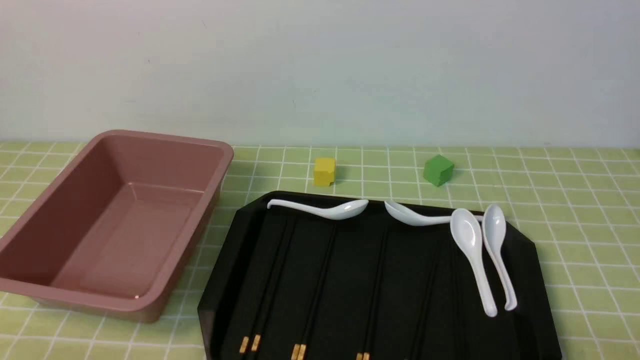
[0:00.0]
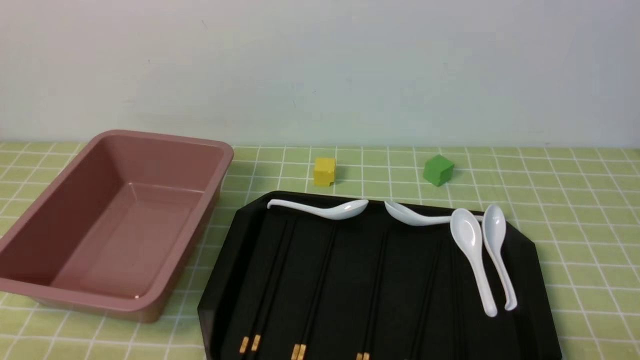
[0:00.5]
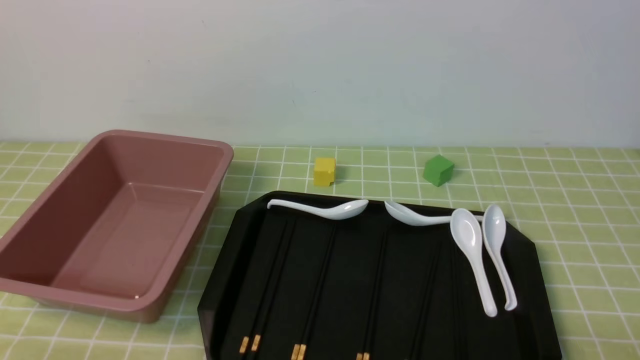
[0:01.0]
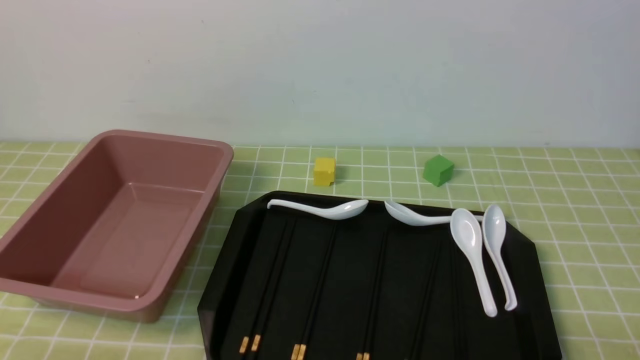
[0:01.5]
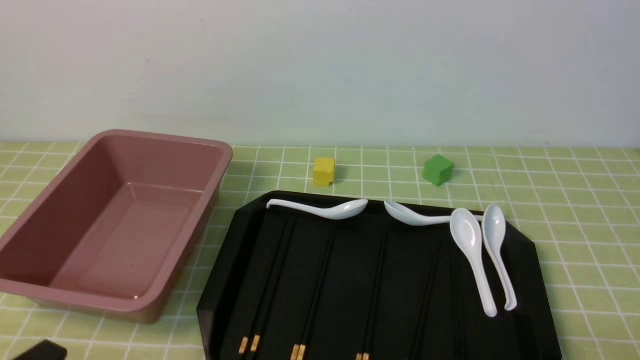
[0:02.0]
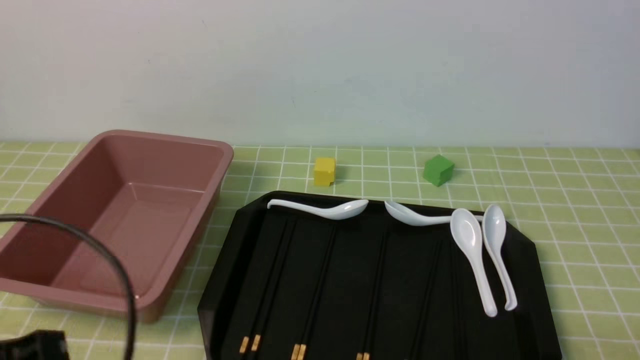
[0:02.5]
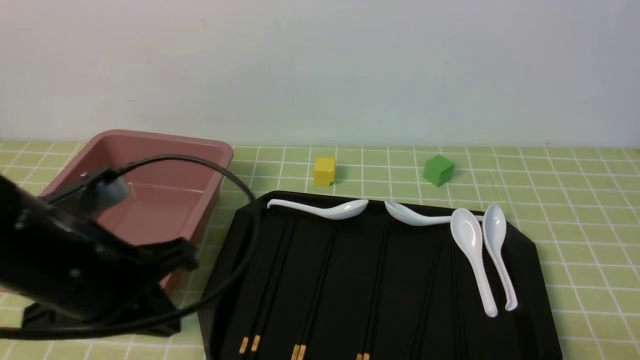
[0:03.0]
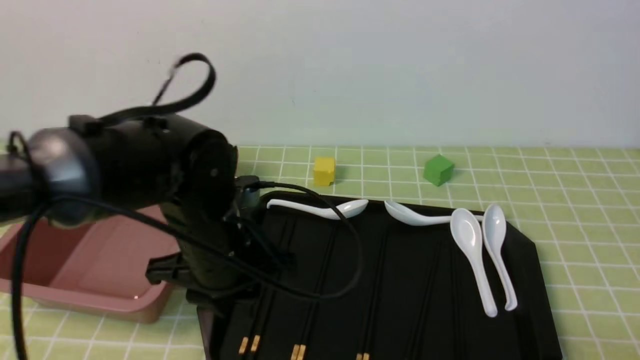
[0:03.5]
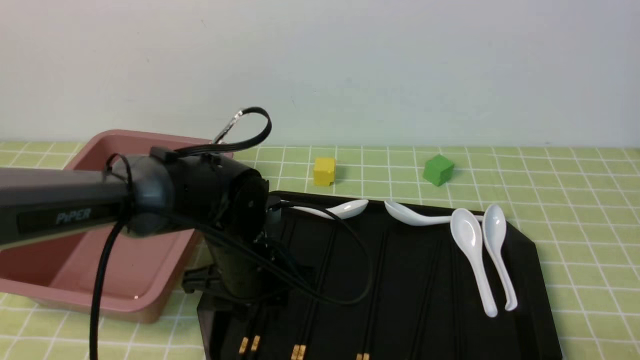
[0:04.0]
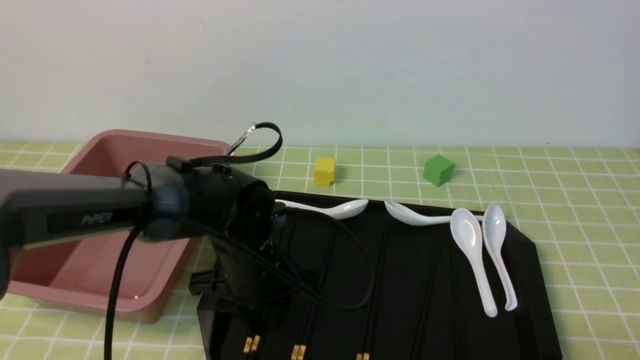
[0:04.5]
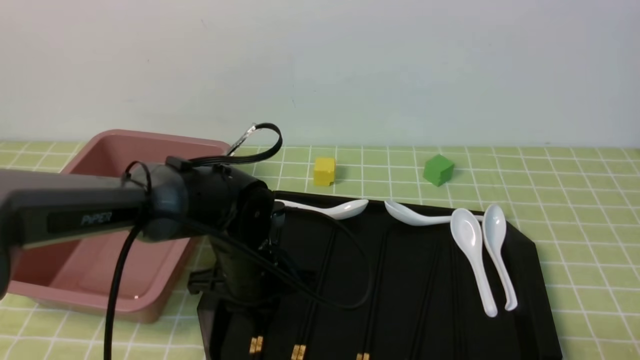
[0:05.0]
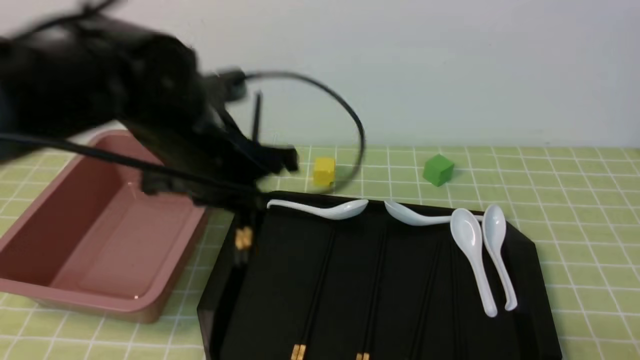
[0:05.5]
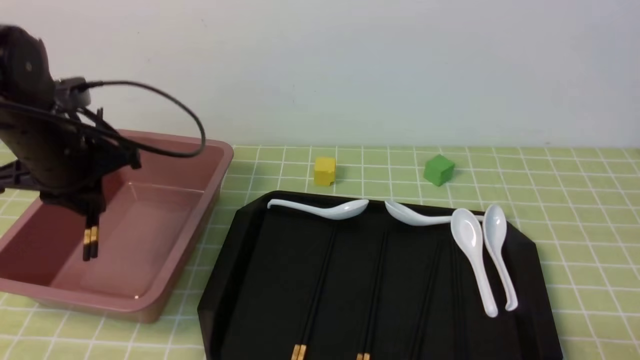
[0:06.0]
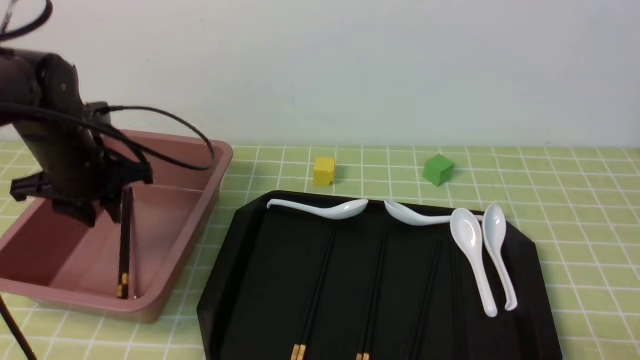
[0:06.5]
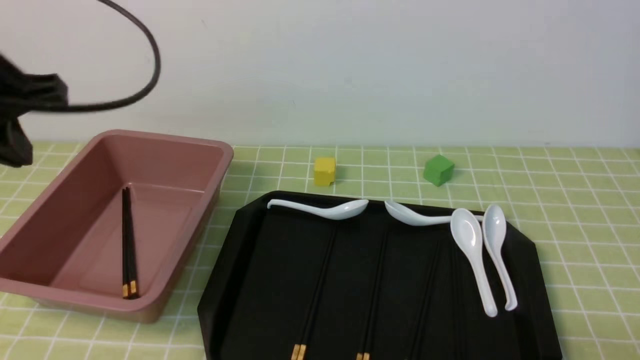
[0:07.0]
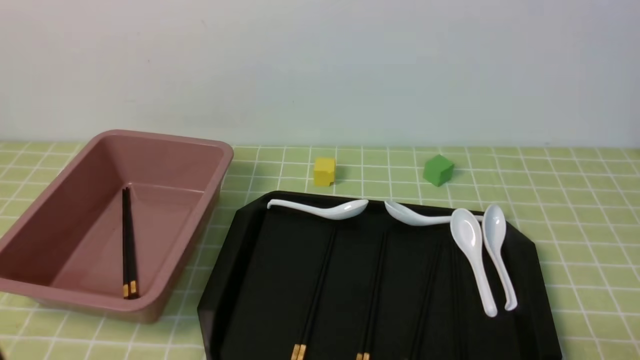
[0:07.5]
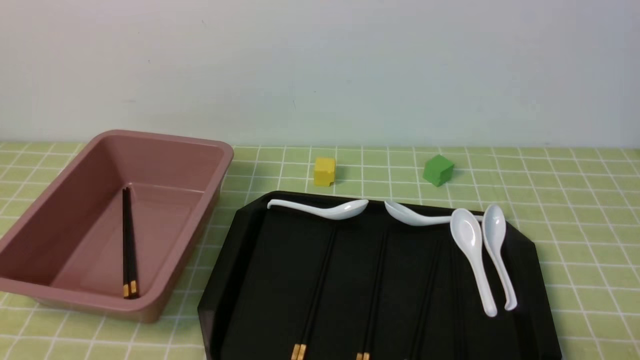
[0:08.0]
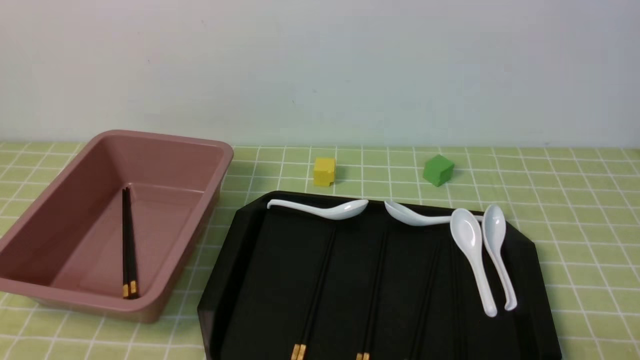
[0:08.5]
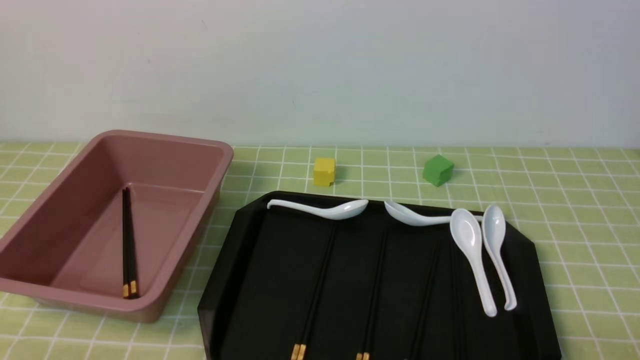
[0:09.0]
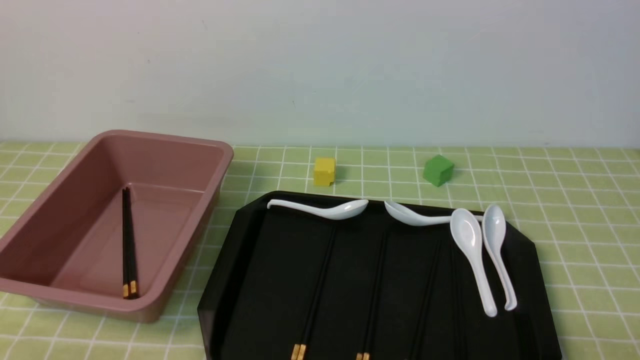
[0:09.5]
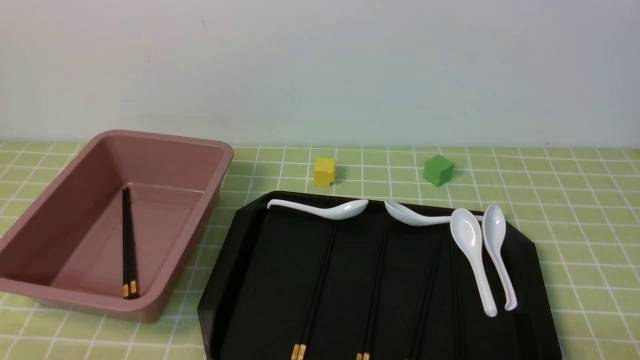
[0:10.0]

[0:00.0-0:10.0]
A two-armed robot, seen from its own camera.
Step, 0:00.0 to 0:05.0: use the left arm to grab a pair of chopsticks.
Step, 0:05.5 to 0:06.5: use the left arm to put the chopsticks into the lunch box.
0:02.0 to 0:04.0: The left gripper is displaced forward and to the right by about 30 cm, and opens its fingers.
0:04.0 to 0:06.0: The left gripper heads to the left and upward, covering about 20 cm, and closes its fingers.
0:06.0 to 0:08.0: The left gripper shifts about 30 cm backward.
